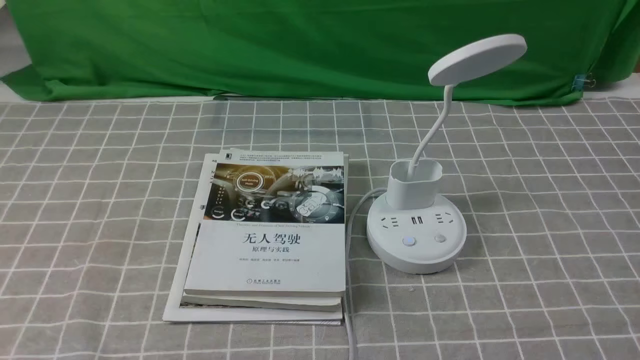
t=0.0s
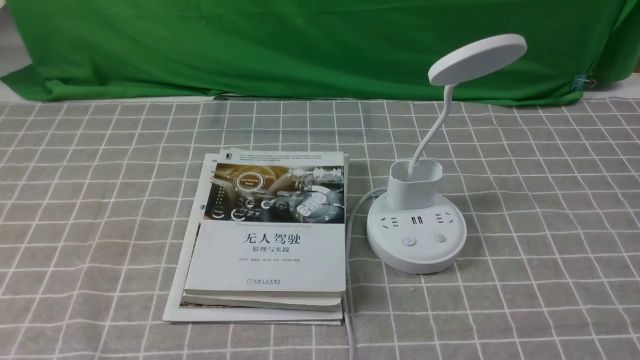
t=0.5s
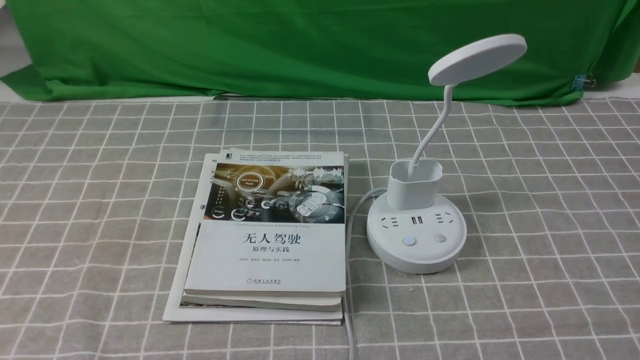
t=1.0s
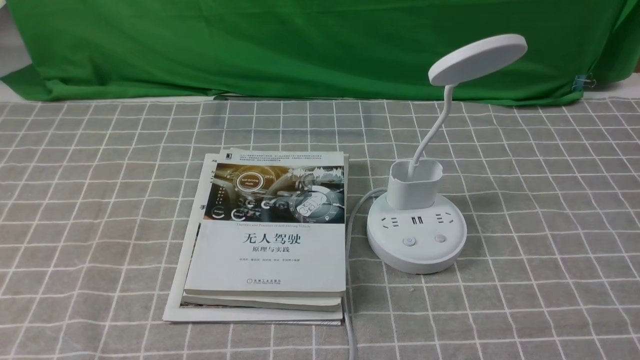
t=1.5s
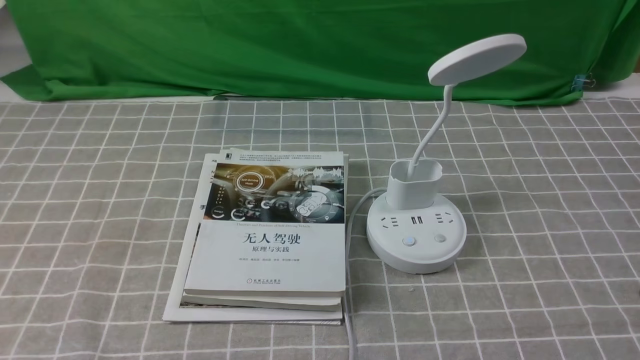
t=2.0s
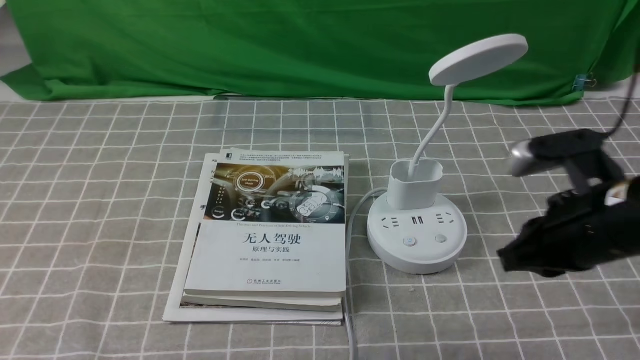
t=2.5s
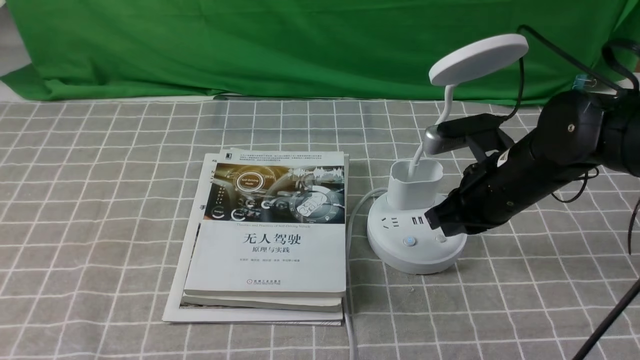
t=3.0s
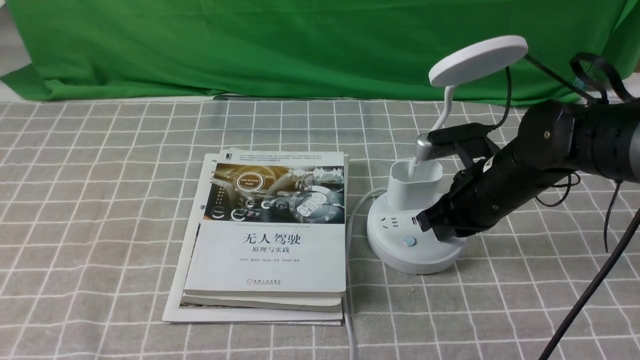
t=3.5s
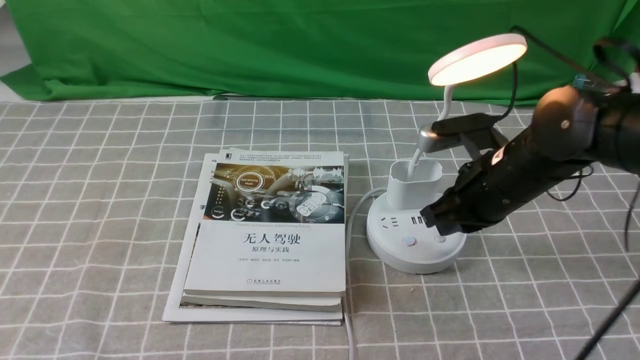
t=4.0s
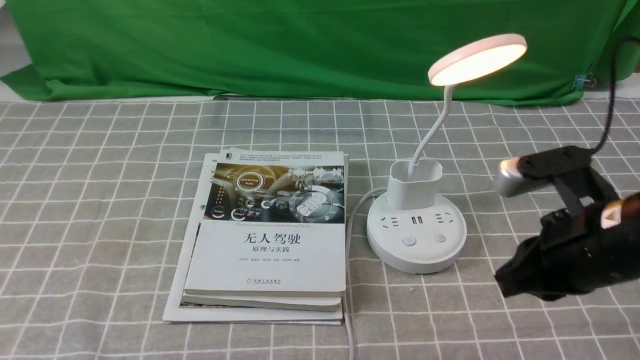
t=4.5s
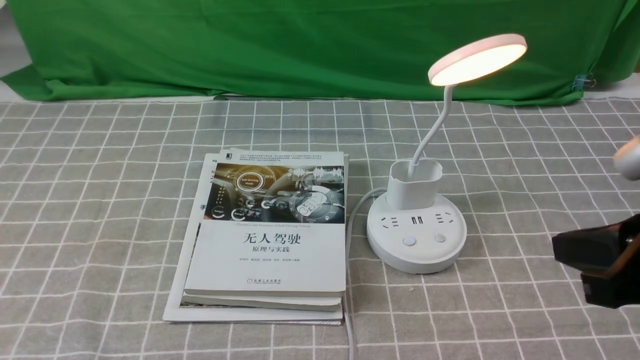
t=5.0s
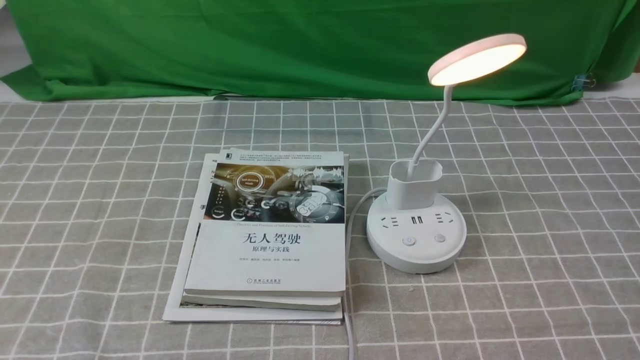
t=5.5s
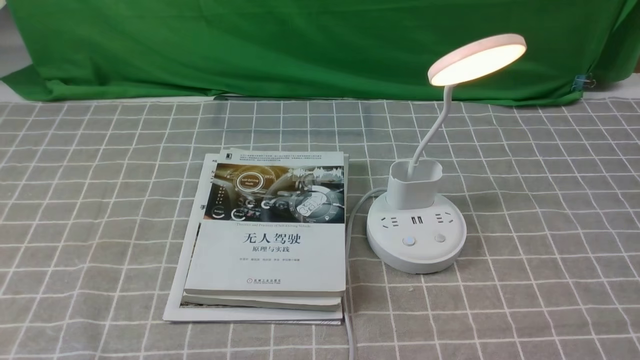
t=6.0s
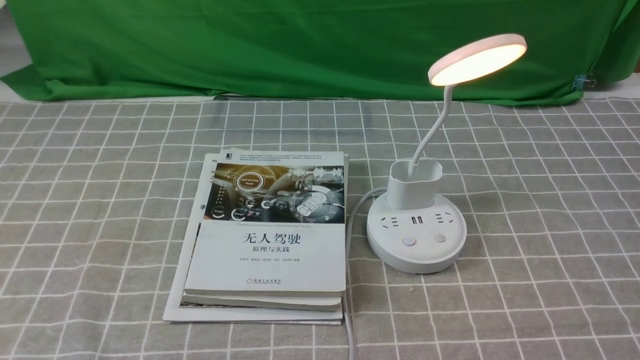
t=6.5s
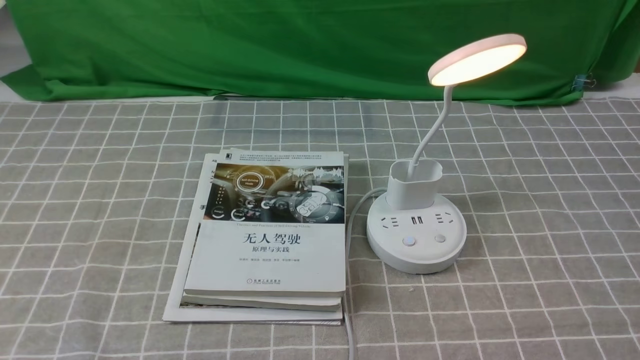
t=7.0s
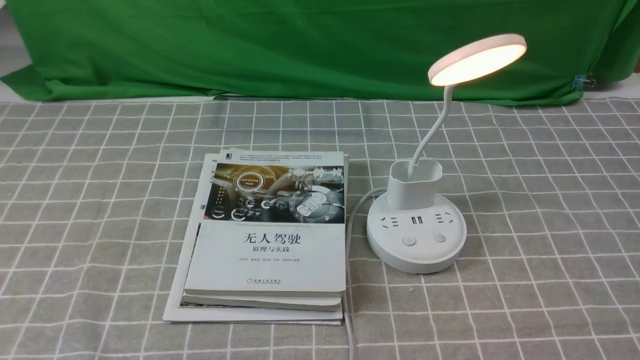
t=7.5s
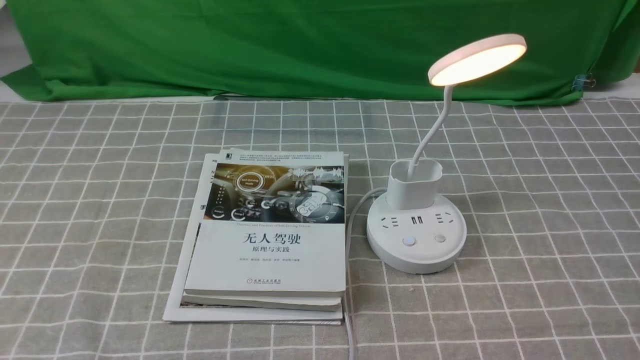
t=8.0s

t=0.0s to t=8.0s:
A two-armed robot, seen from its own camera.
Step, t=0.0s to t=4.0s: use the right arm to press the button switch on the lamp holder.
t=2.0s to t=4.0s: The right gripper moves forward and to the left, approximately 25 cm.
t=4.0s to t=6.0s: The right gripper travels backward and to the right by some 30 cm.
